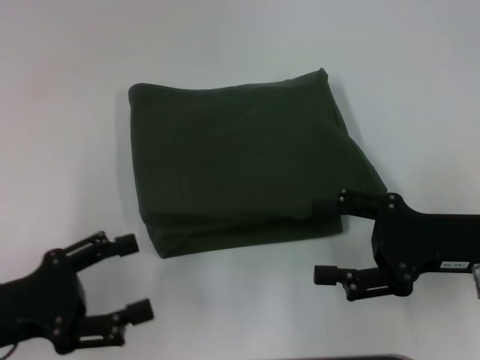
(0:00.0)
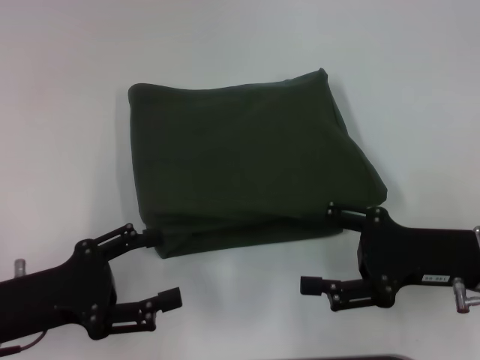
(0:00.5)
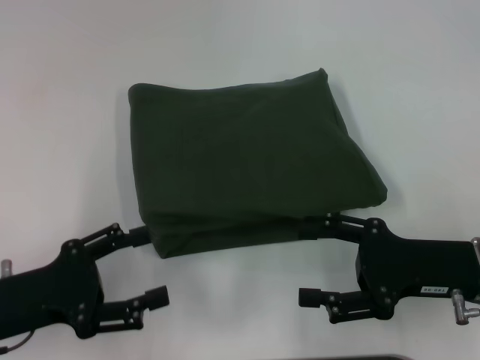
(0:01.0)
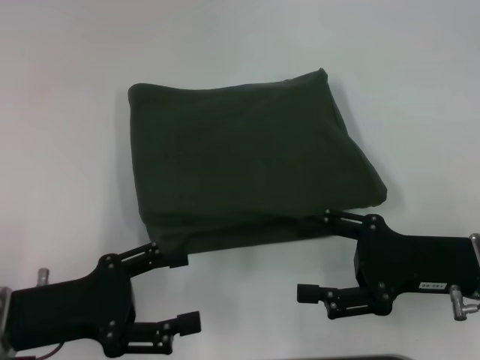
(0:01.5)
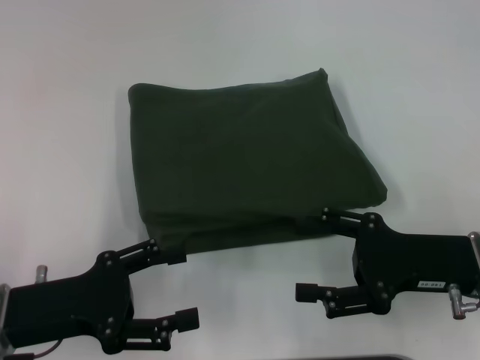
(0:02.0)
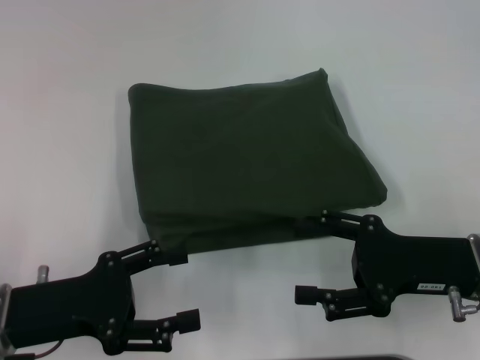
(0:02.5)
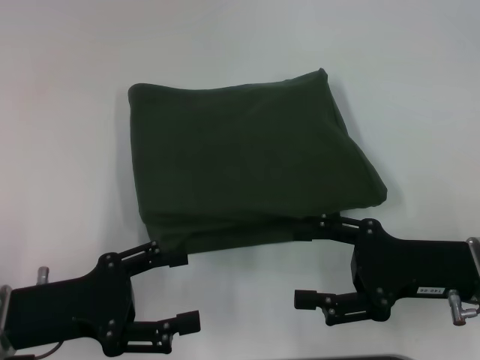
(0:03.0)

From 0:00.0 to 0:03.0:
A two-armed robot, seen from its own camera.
From 0:00.0 to 0:01.5: The grippers make only small movements.
From 0:01.5 to 0:03.0: Neither gripper changes place.
